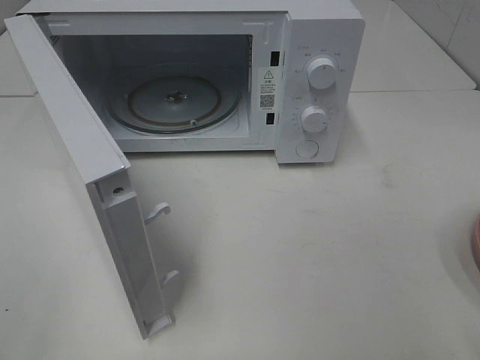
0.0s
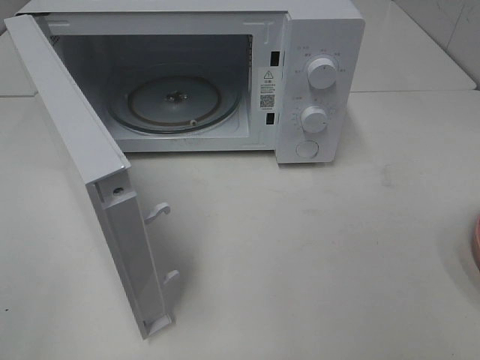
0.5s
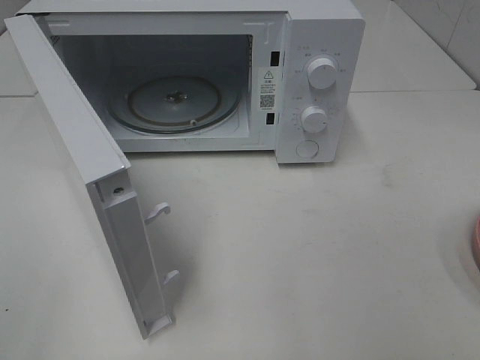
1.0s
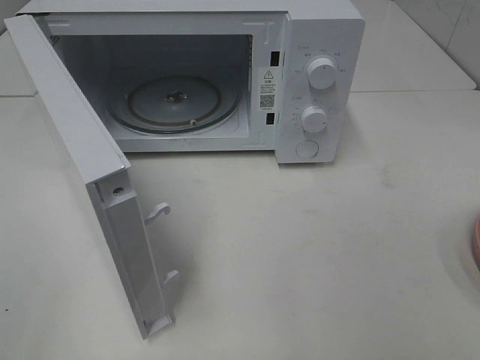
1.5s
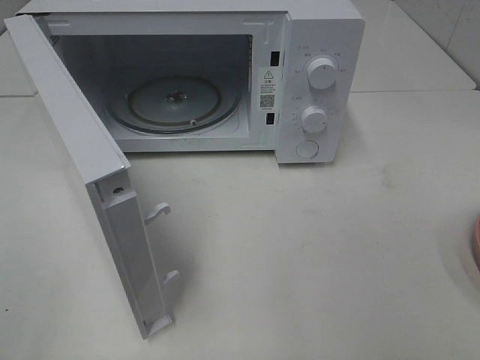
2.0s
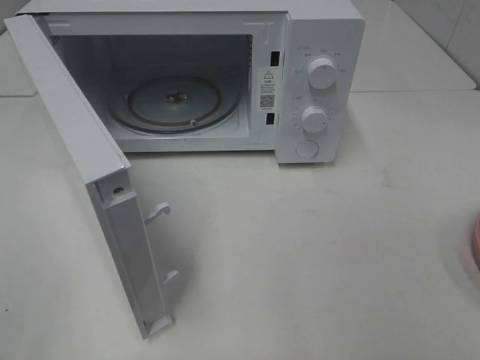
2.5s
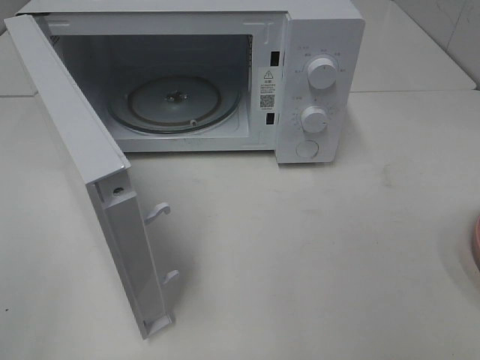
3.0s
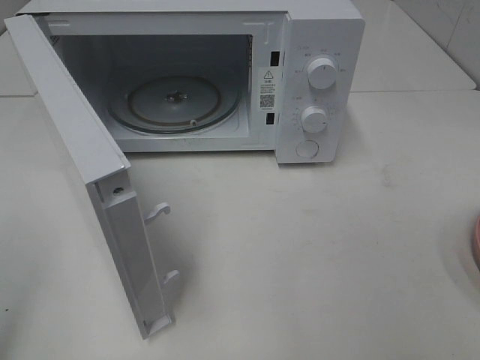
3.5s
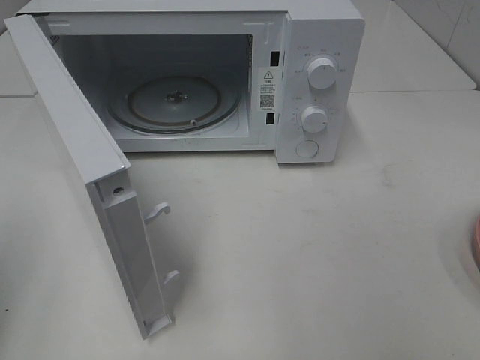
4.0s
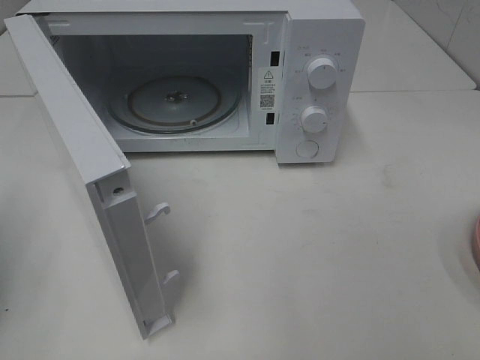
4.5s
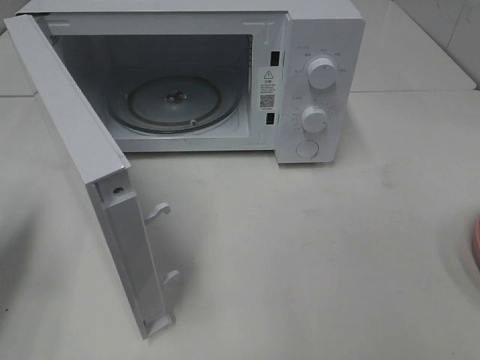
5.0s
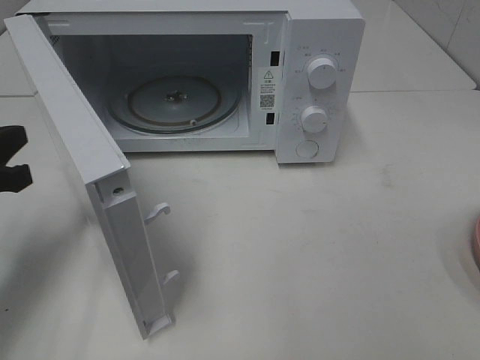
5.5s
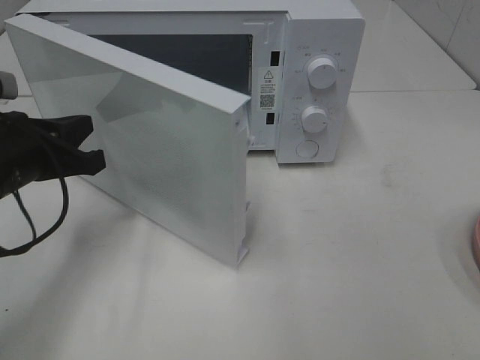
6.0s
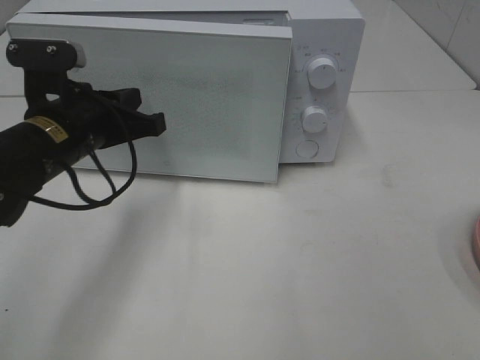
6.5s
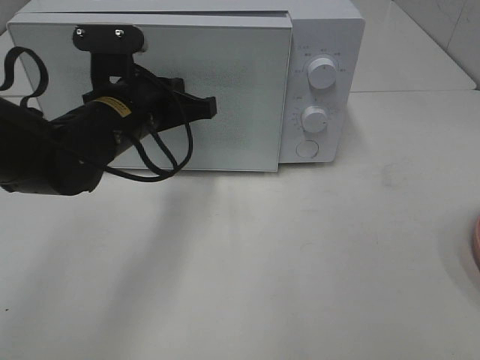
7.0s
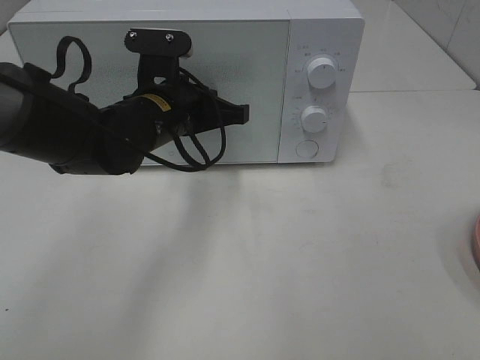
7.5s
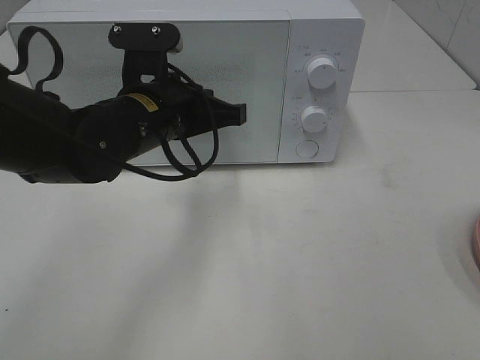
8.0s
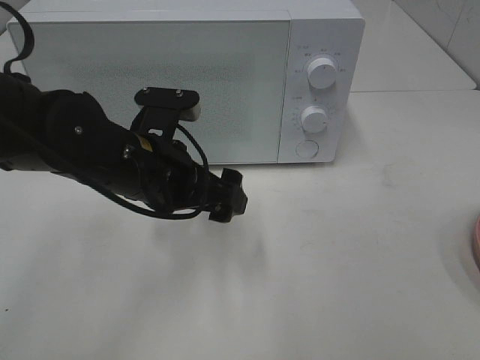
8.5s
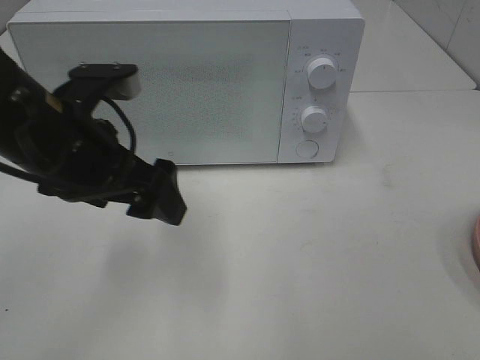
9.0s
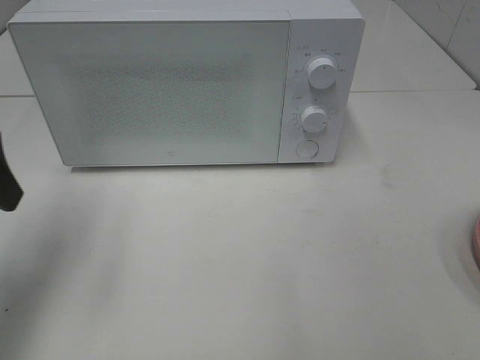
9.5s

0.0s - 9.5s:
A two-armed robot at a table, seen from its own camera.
Task of the whole recording: Heat the burger.
Step, 0.0s - 8.0s: Left hand: close the microwave door.
4.0s - 5.5s: The left gripper heads forward, downward and to the right, covering some 15 cm.
5.5s - 7.5s: The left gripper heads to the right and forward, covering roughly 25 cm.
7.5s - 9.5s: The left gripper goes approximately 25 cm to the left, backward and upward, and opens.

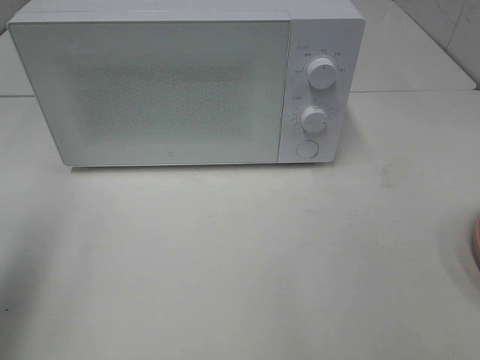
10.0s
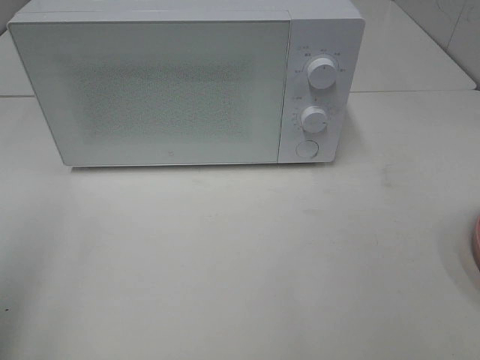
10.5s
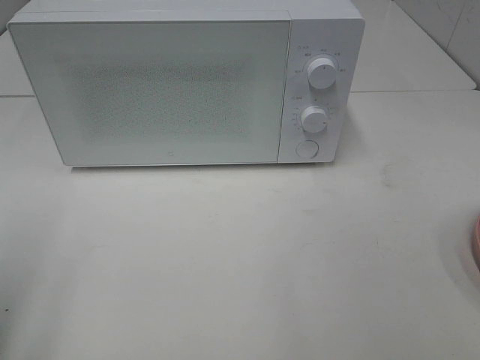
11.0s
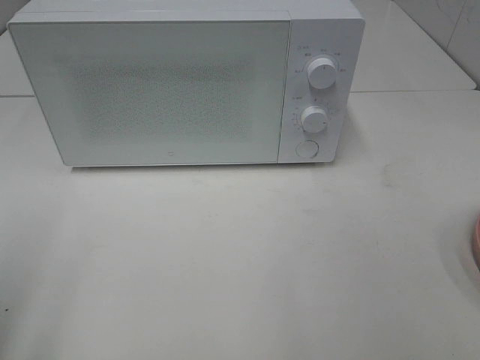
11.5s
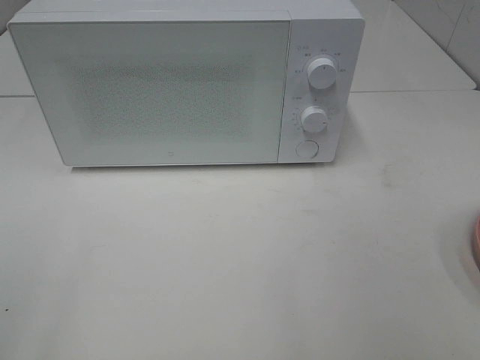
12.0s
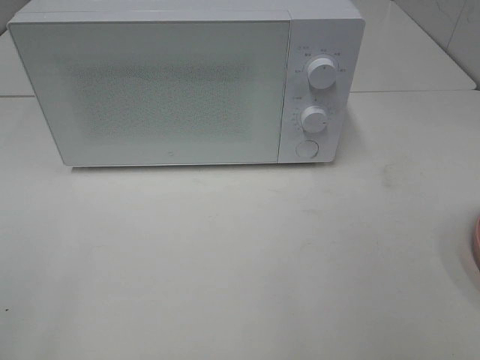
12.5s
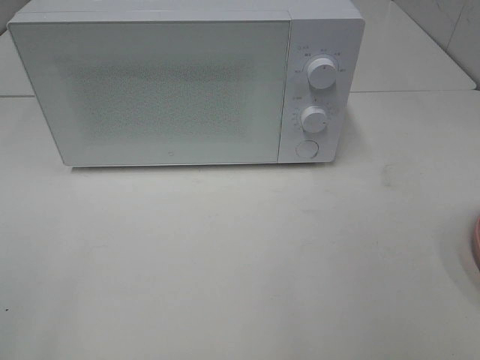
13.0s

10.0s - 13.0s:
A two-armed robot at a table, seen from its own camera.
Task of the whole recording: Heat the burger.
10.0s - 11.5s: The left gripper shifts about 10 cm backward and downward.

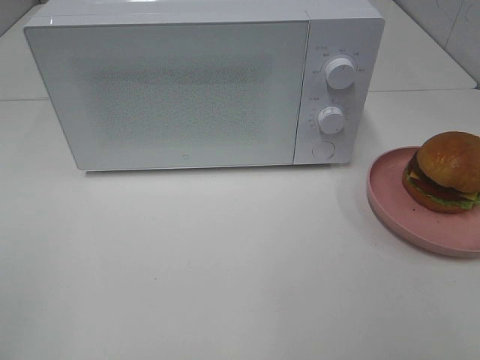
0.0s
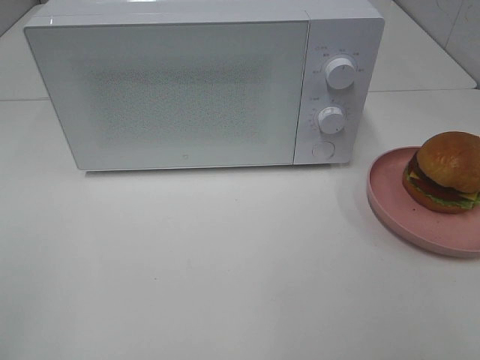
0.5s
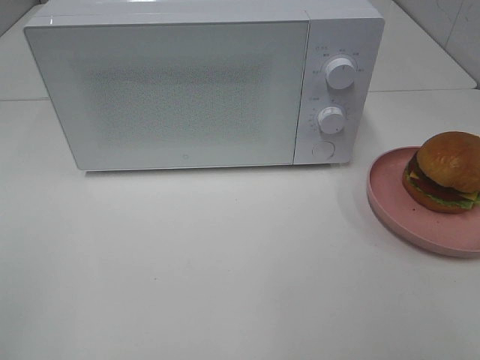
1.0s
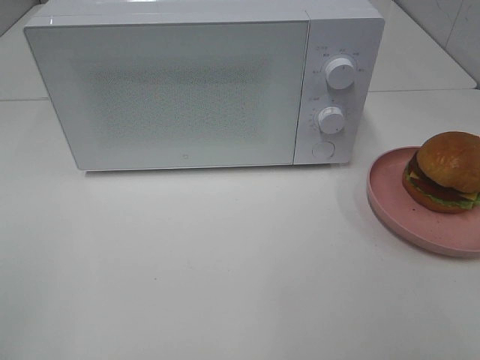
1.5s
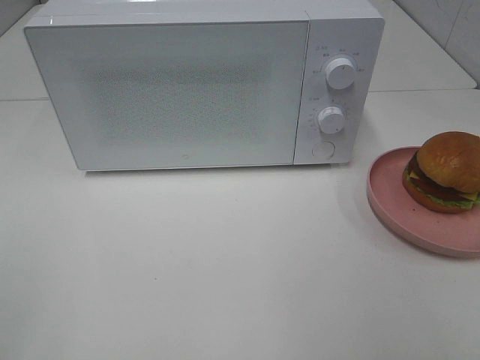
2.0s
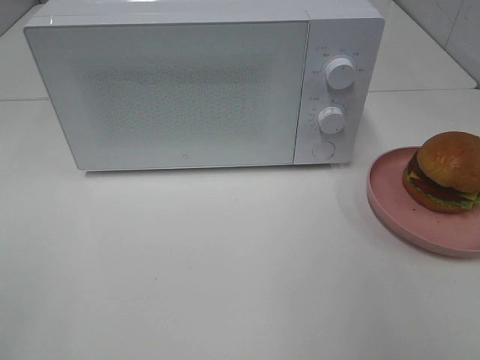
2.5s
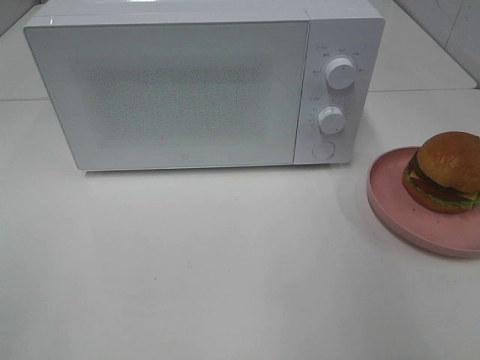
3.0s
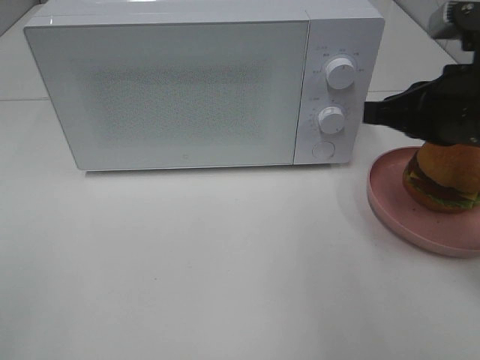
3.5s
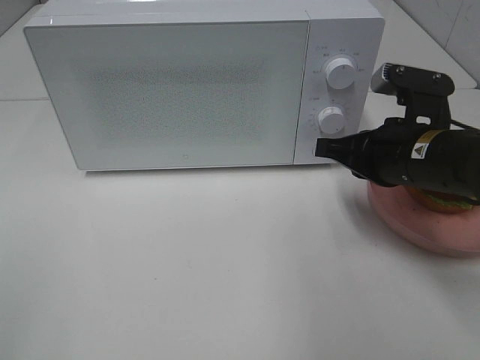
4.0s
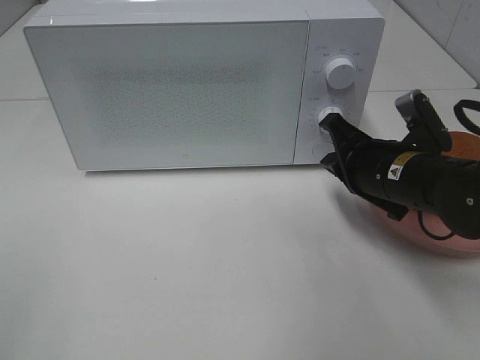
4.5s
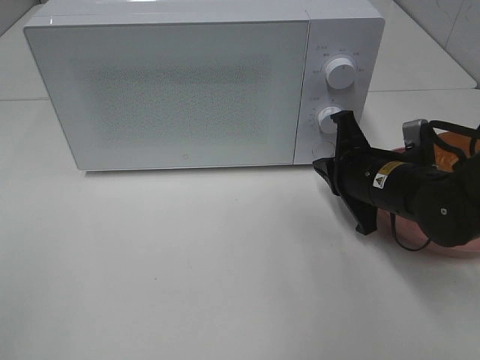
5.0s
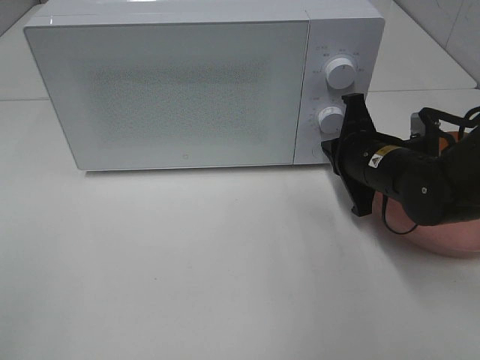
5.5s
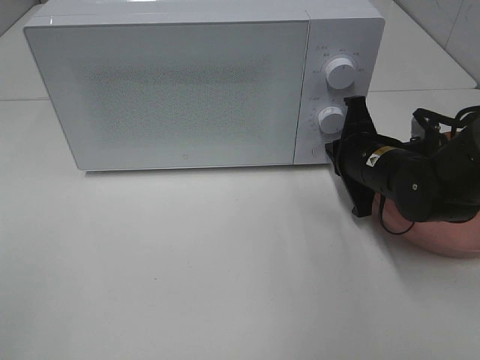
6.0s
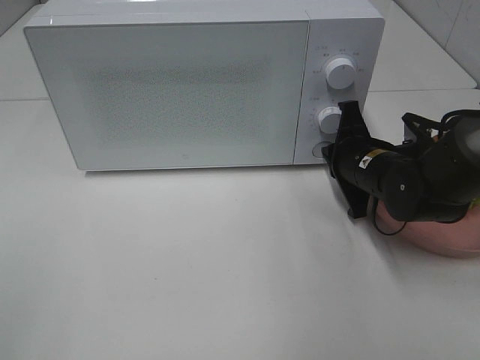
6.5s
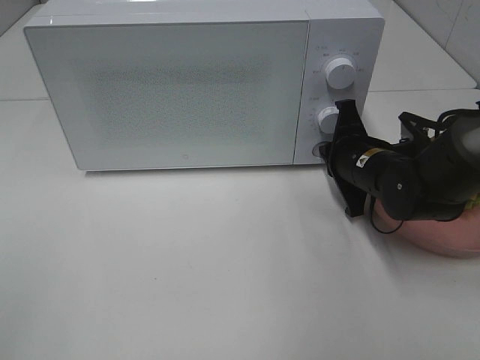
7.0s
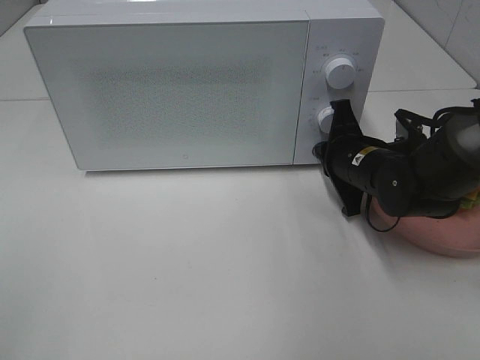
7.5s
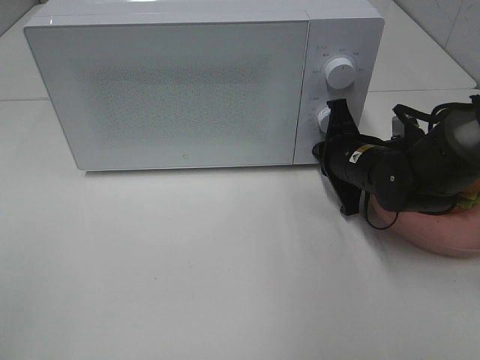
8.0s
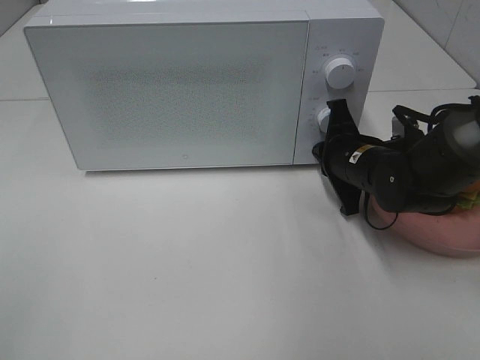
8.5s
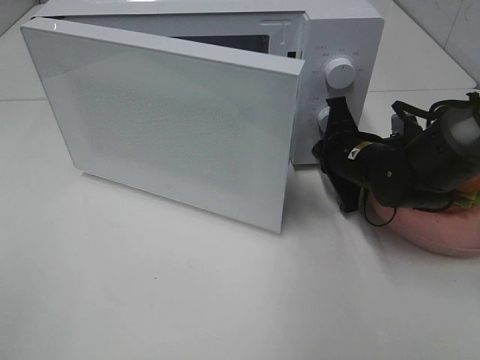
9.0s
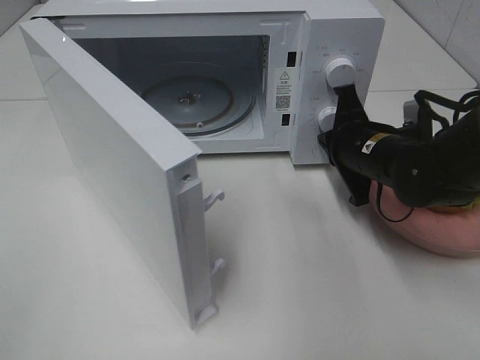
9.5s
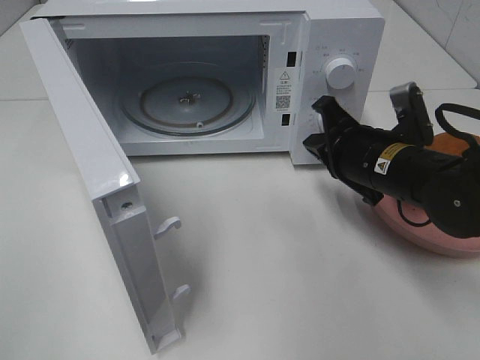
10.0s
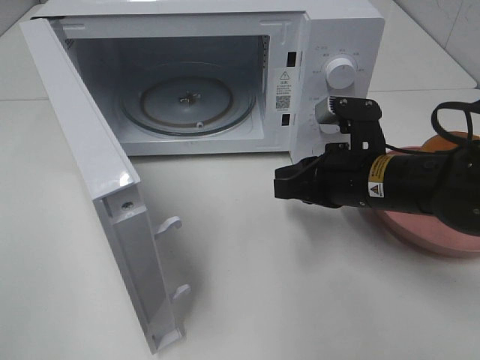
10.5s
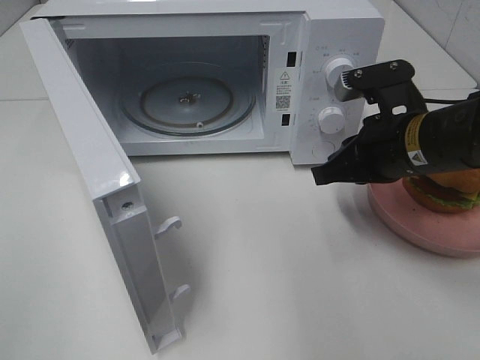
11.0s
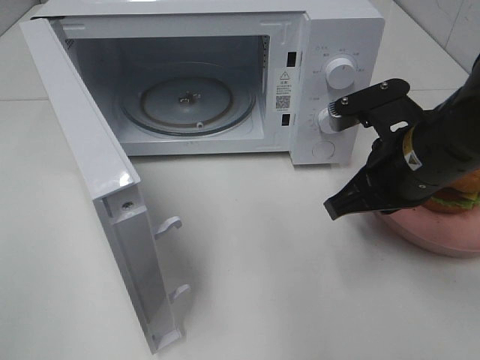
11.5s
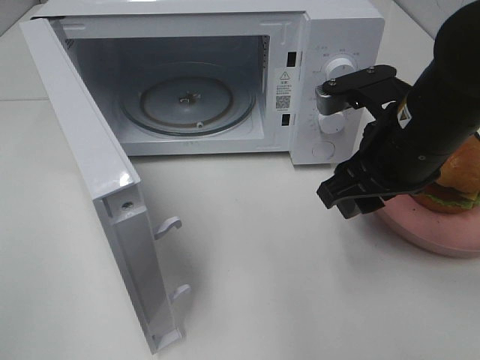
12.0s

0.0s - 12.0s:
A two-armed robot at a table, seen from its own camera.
Task of the whole recording: Heat the burger.
Step, 0.0s - 9.5s: Right hand: press the switch.
2.0s - 4.0s: The right gripper travels forward, downward and to the left by some 30 cm, and closes its fingers.
4.0s - 6.0s: The right gripper is displaced downward and forward by roughly 10 cm.
6.0s - 8.0s: There are only small adjustments of the grippers.
8.0s - 10.0s: The right gripper goes approximately 5 cm backward.
10.0s - 12.0s: The right gripper travels upward by approximately 10 cm, and opens.

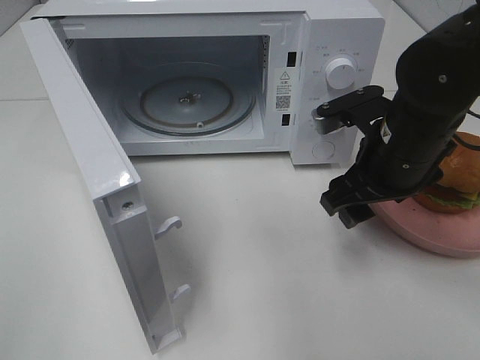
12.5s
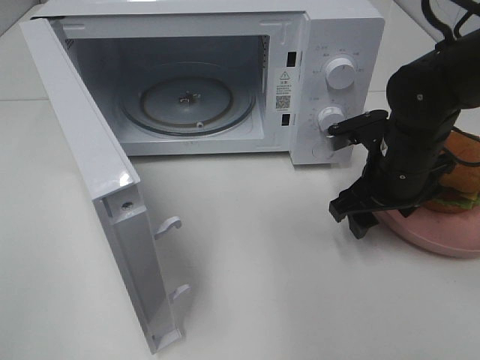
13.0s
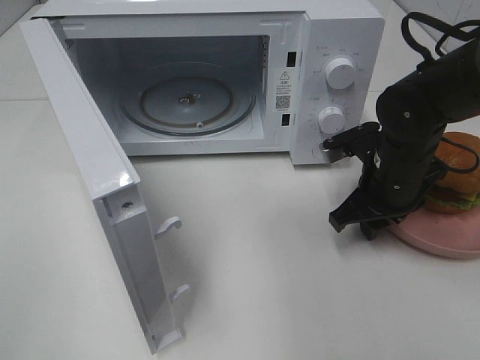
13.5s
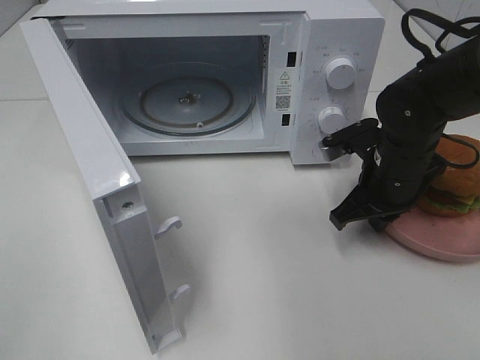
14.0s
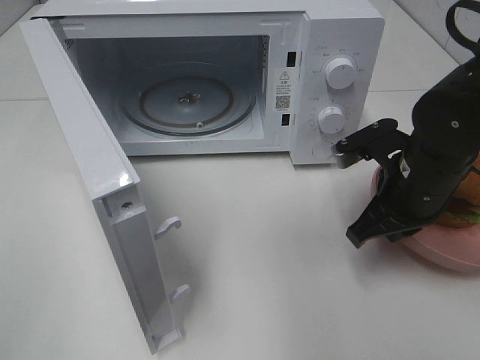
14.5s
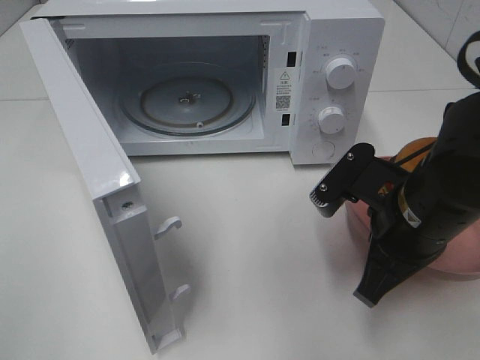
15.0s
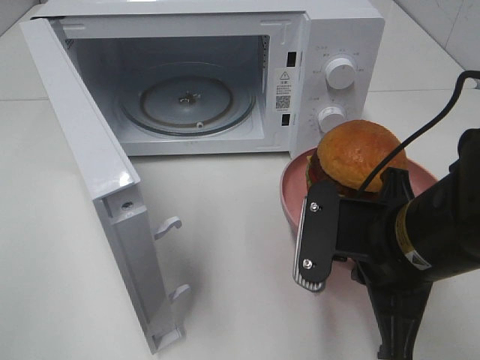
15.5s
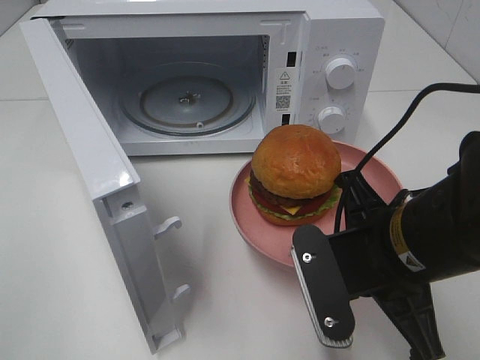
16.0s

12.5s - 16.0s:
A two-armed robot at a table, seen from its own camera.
Task of the whole recording: Heat the burger.
12.5s - 14.5s: The right gripper closes up.
14.5s - 16.0s: The right gripper moves backward and to the left, some 10 cm.
